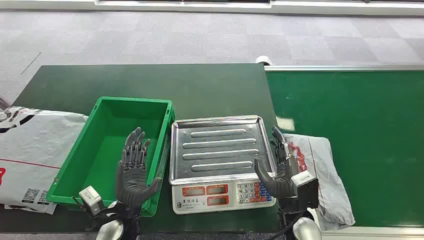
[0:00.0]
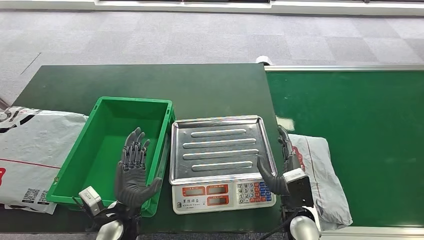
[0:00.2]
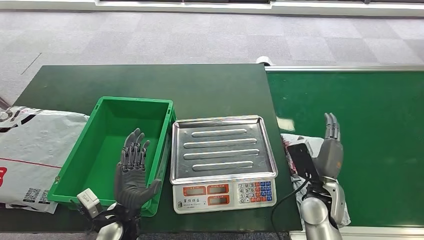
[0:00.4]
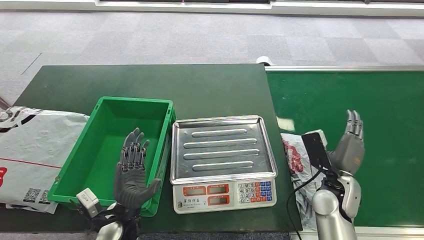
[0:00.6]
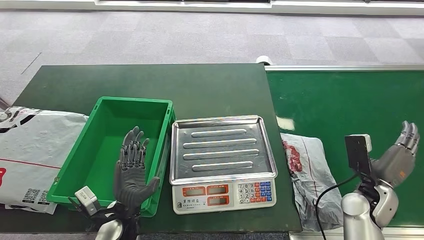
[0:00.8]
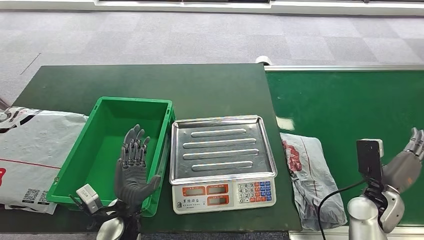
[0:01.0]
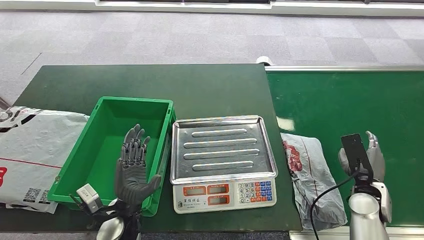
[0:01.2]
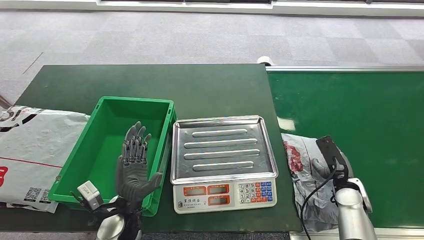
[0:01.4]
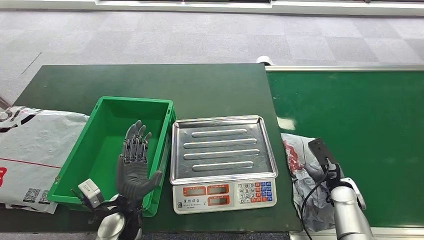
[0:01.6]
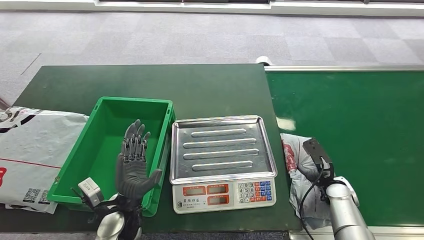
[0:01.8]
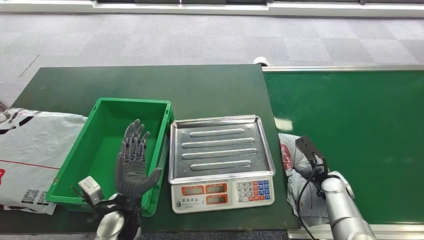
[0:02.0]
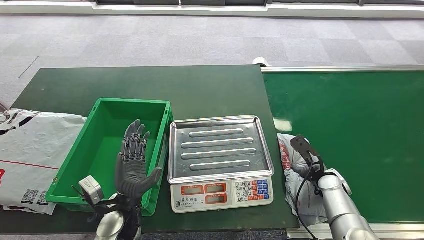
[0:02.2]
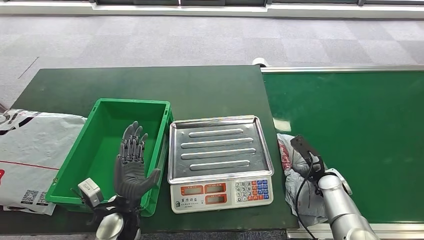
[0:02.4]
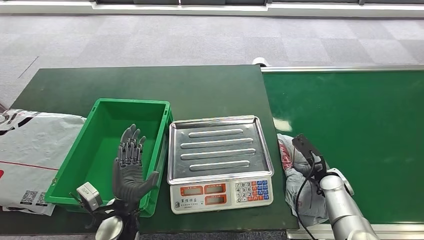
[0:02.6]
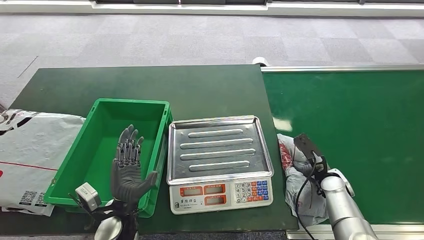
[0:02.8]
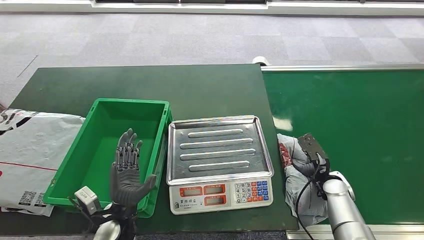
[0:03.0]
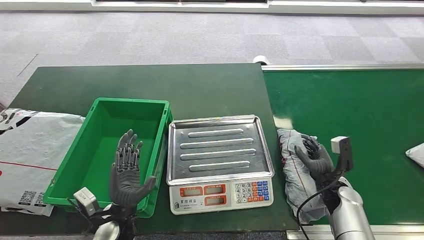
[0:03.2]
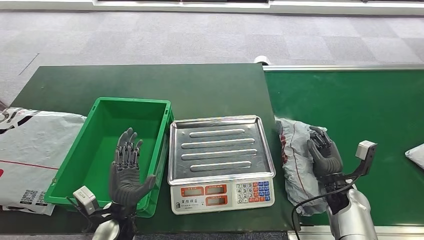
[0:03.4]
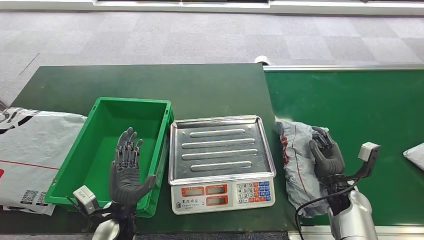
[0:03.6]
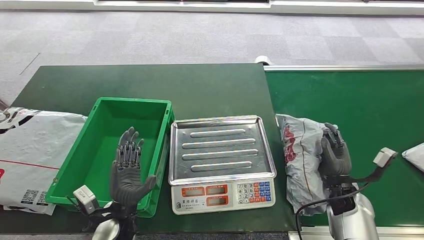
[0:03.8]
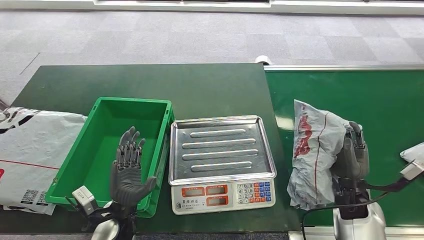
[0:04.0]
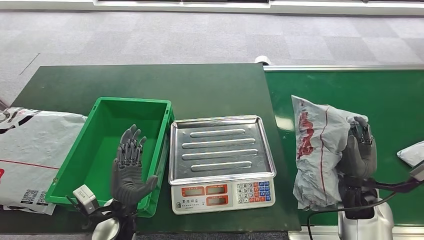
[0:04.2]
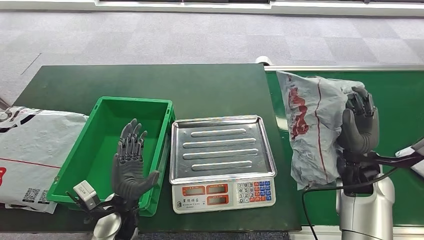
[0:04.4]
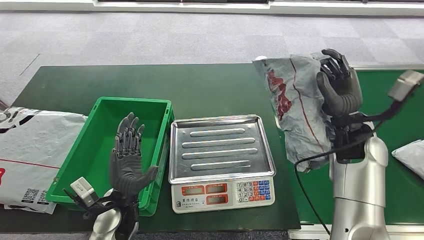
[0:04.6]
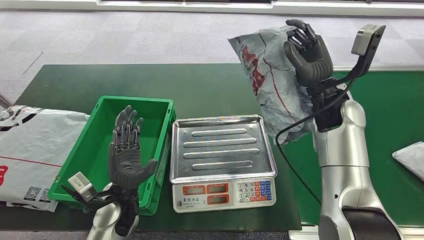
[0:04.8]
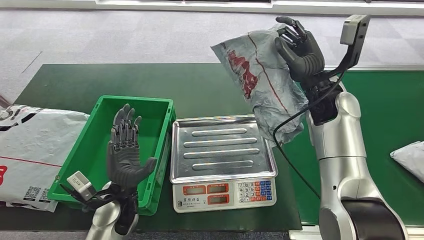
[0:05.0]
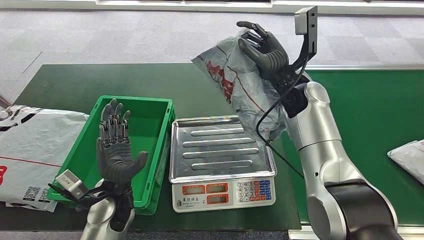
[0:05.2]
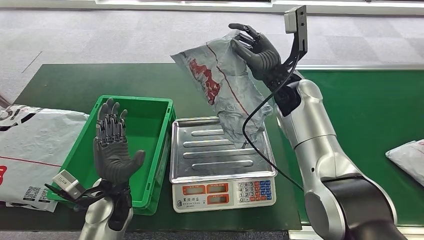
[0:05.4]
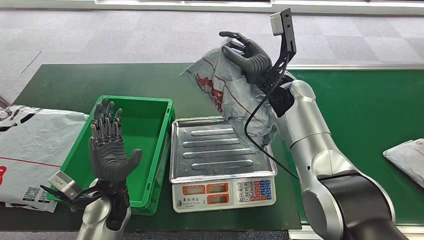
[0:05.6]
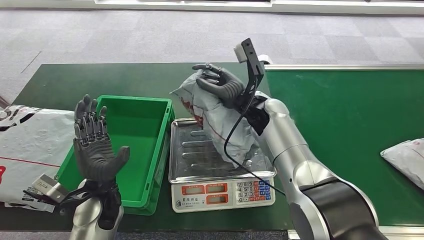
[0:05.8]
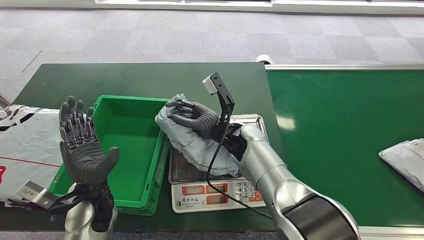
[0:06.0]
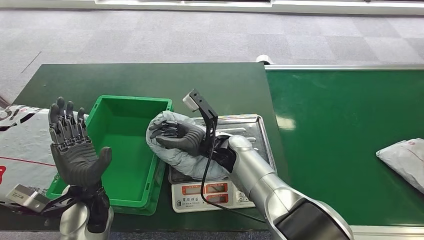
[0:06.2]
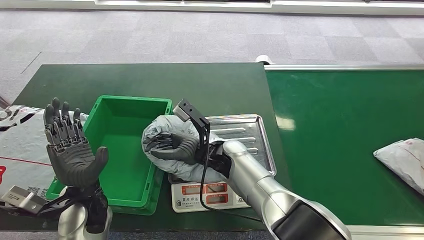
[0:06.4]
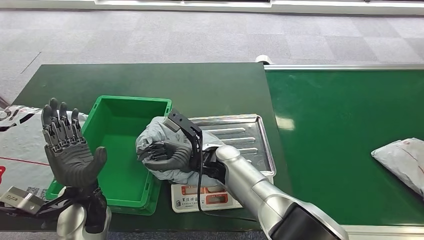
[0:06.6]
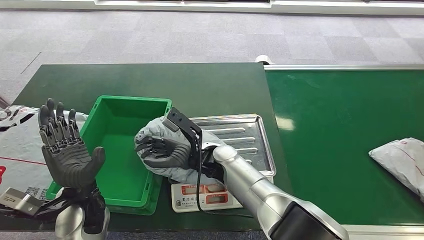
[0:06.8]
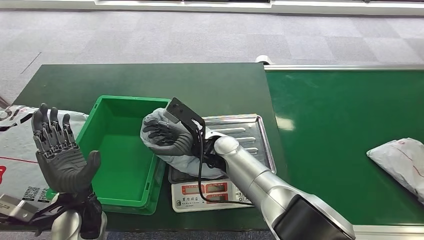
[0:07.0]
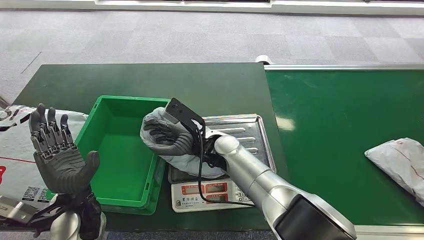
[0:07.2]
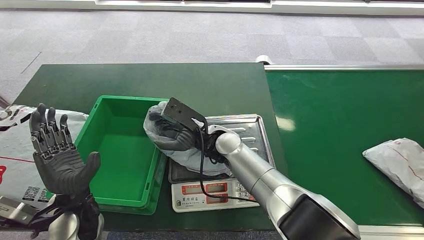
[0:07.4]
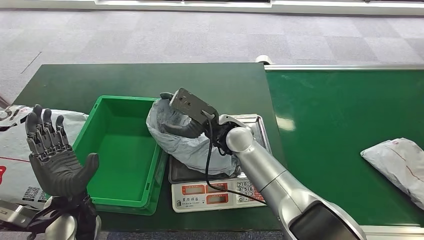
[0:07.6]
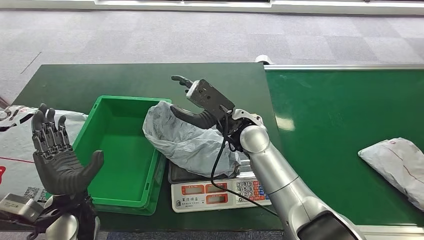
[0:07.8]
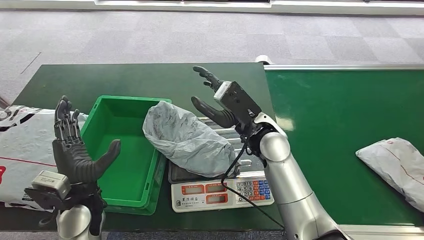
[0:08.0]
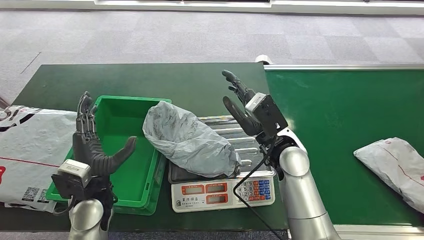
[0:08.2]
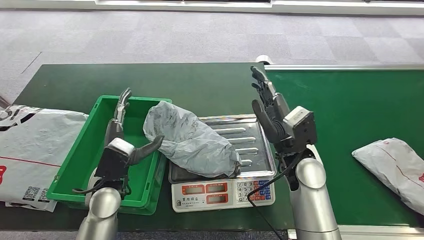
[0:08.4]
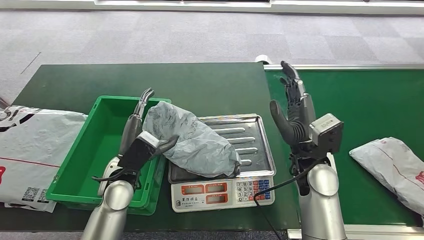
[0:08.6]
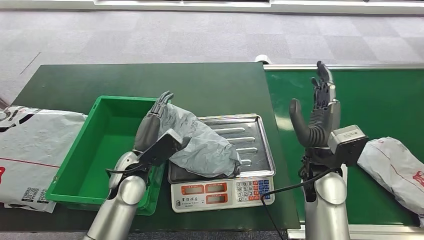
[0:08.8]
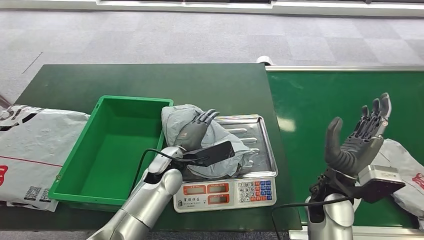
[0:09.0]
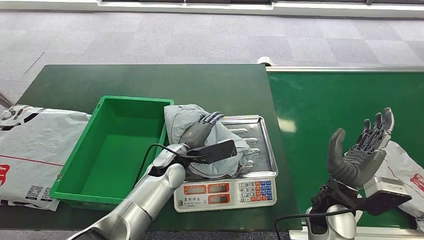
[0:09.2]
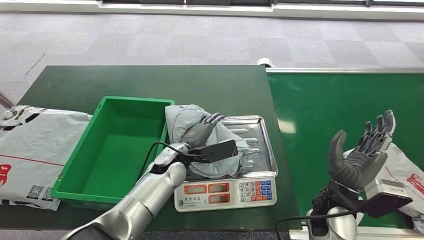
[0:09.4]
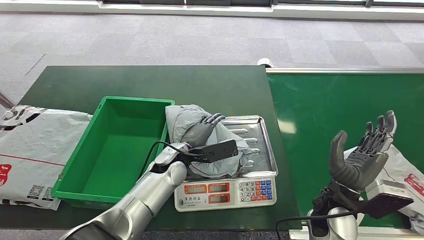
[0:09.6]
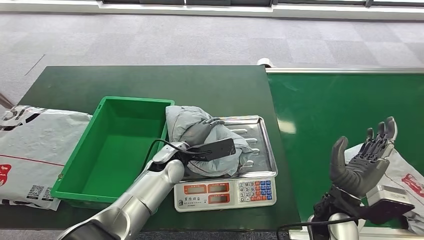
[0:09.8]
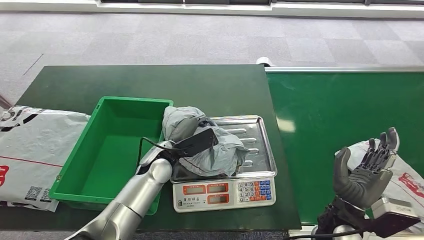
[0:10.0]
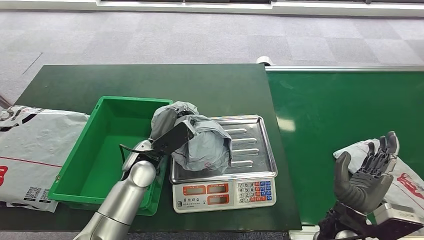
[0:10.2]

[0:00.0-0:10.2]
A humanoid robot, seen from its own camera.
Step, 0:00.0 to 0:04.2: Pick up the package from the conveyor belt.
Step, 0:04.4 to 0:08.0: Place the package onto the inbound machine.
0:01.4 to 0:03.0: The right hand ends up approximately 5 cm from where it was.

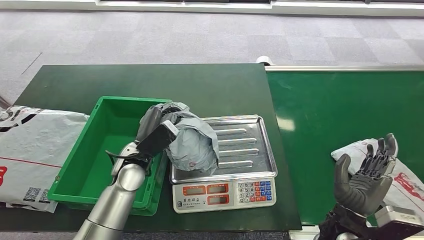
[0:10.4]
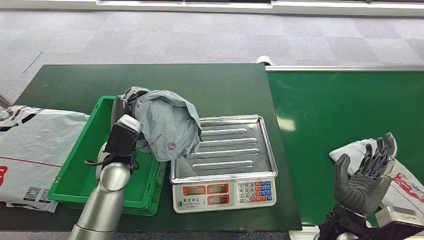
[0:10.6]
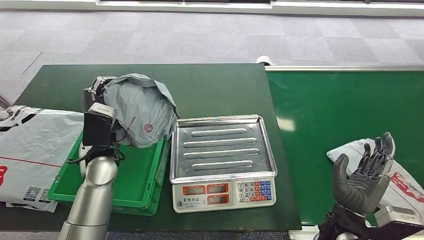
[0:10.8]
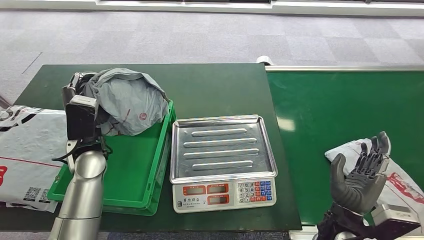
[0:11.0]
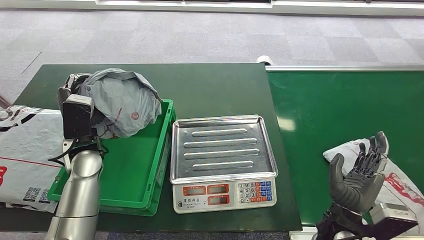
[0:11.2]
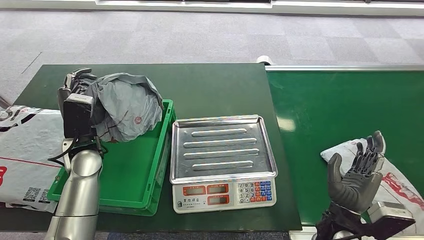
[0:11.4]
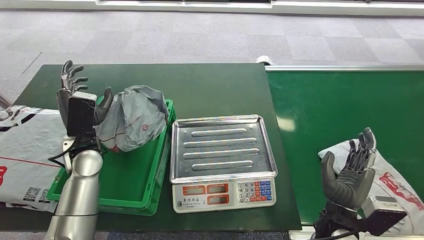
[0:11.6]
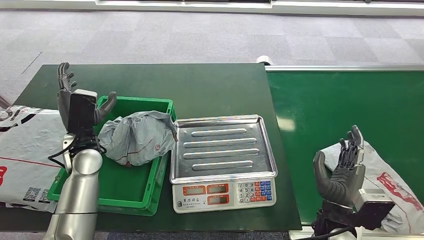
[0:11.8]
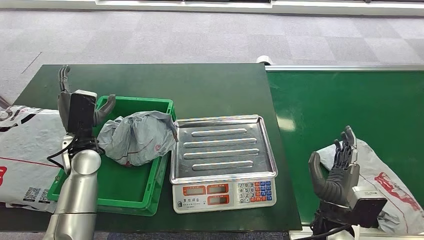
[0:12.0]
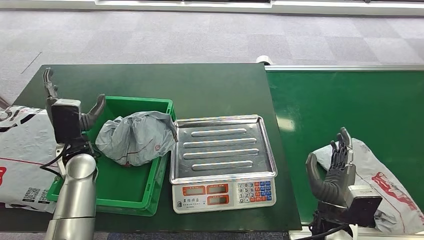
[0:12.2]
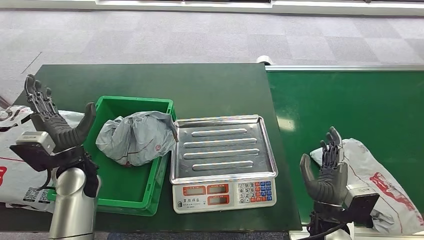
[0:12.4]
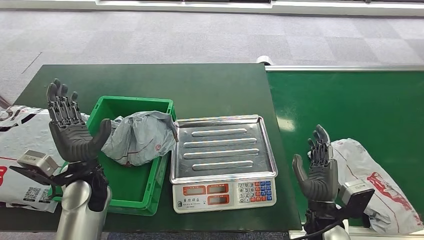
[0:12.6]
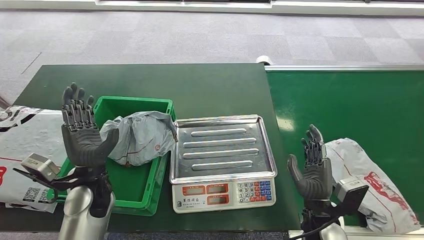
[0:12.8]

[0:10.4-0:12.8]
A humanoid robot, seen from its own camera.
Step, 0:11.2 to 0:12.8: Place the package into the parcel locker.
0:11.6 to 0:12.8: The left hand heads backward, covering about 5 cm.

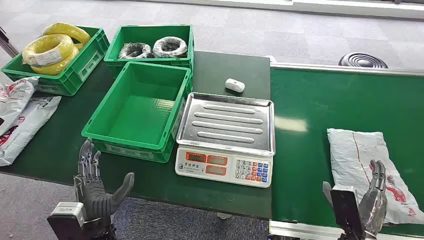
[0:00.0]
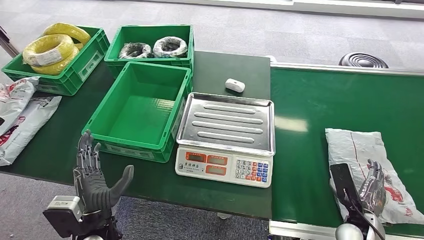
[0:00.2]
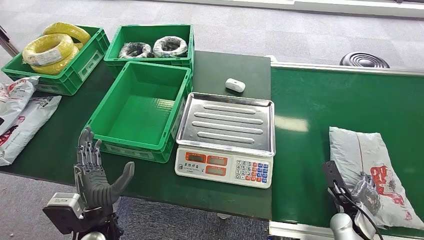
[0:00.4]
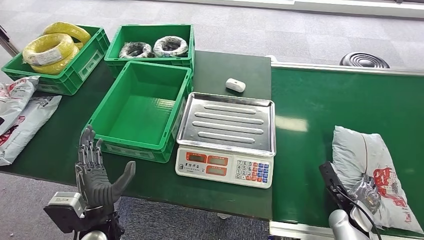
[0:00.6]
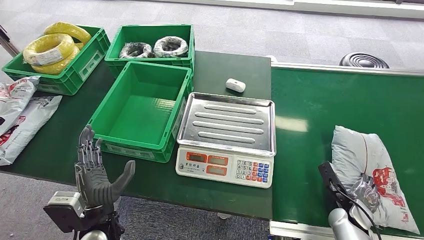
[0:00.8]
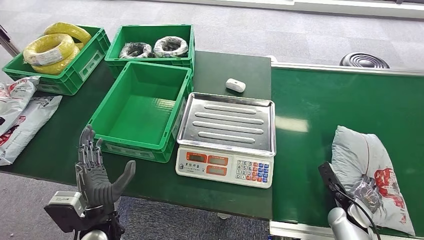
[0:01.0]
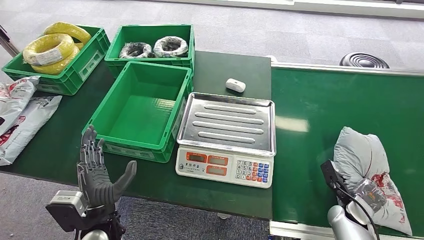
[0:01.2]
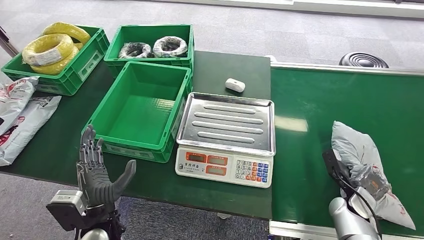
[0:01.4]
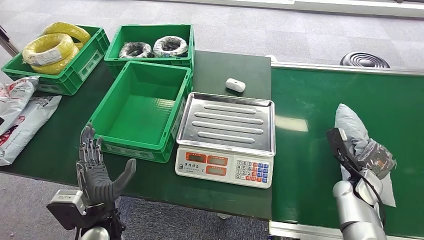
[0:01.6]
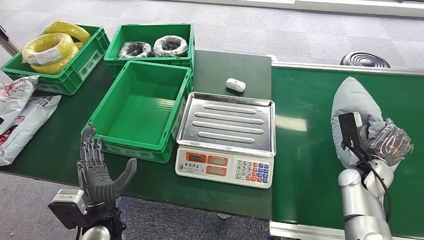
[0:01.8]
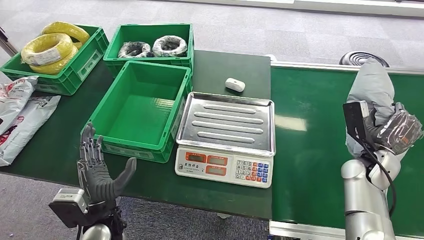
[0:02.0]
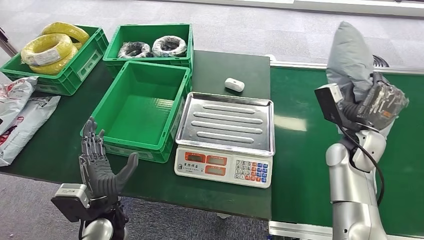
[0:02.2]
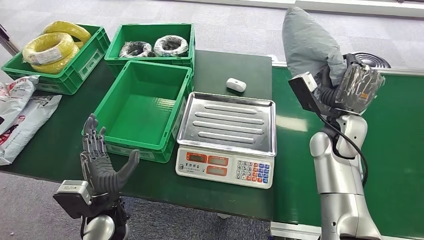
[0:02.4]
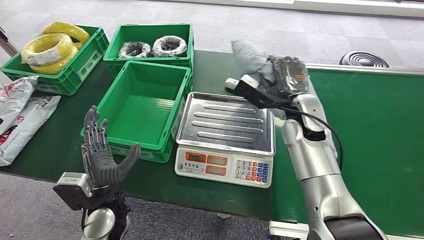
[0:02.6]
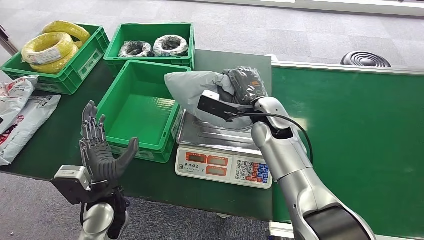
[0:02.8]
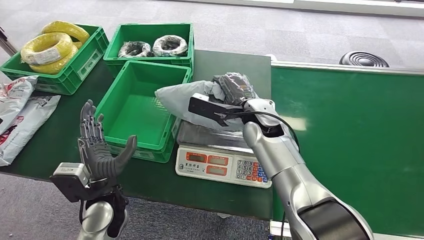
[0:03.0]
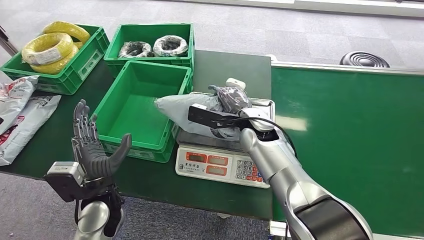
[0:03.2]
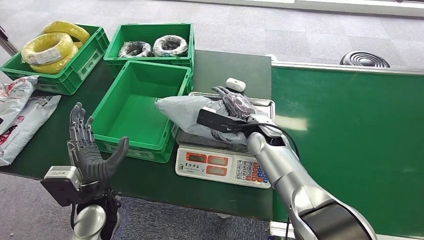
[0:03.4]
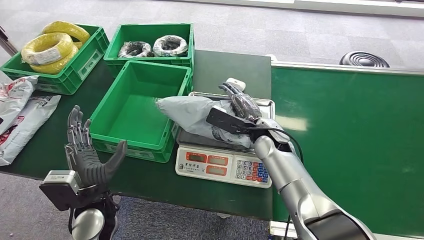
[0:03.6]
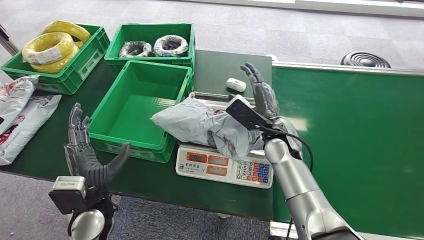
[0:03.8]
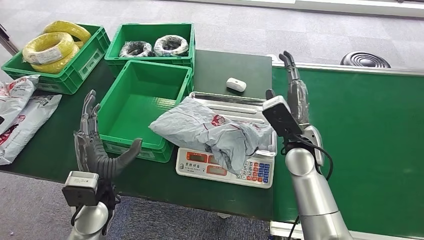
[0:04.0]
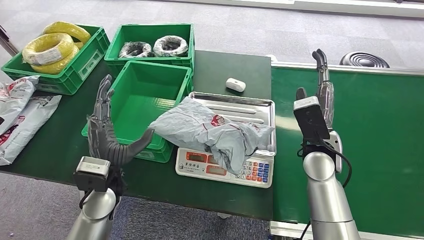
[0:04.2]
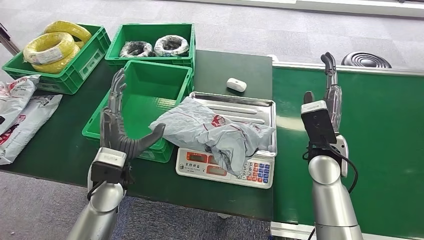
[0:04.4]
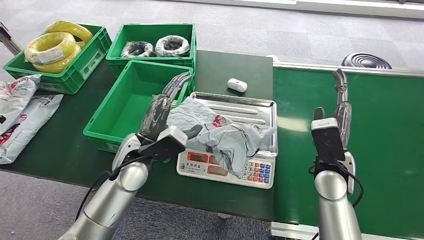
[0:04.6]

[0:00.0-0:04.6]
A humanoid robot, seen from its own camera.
Step, 0:00.0 to 0:01.8: Pick up the package from the conveyor belt.
Step, 0:02.0 to 0:04.0: Place the package onto the inbound machine.
